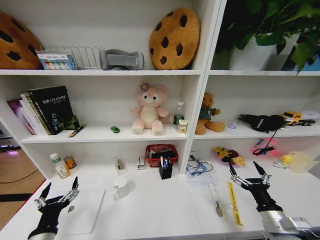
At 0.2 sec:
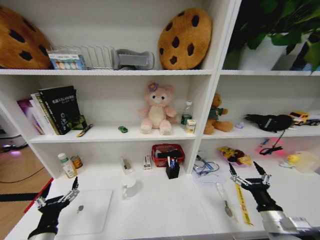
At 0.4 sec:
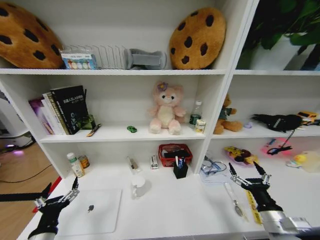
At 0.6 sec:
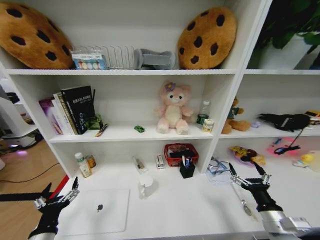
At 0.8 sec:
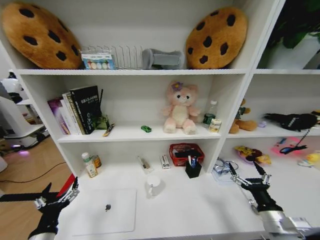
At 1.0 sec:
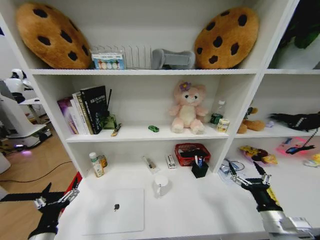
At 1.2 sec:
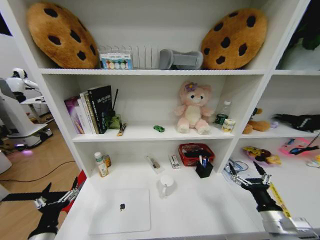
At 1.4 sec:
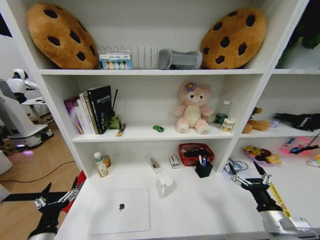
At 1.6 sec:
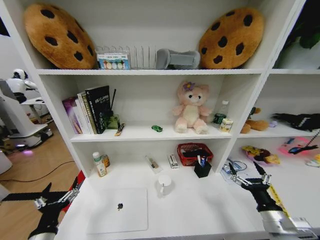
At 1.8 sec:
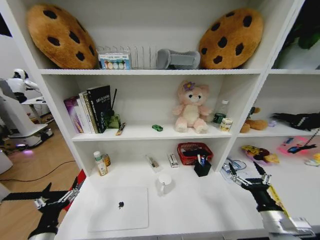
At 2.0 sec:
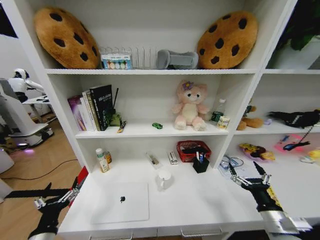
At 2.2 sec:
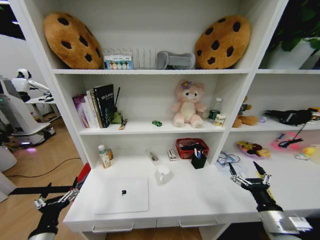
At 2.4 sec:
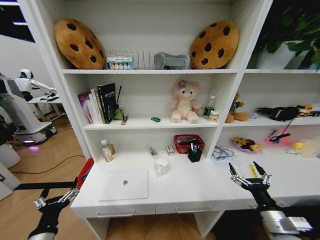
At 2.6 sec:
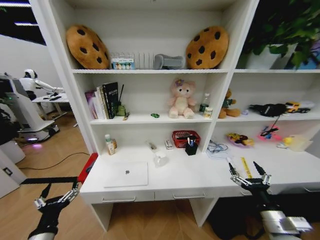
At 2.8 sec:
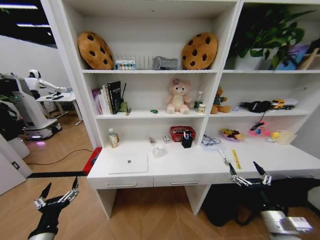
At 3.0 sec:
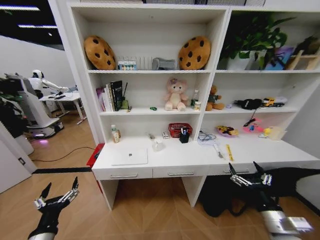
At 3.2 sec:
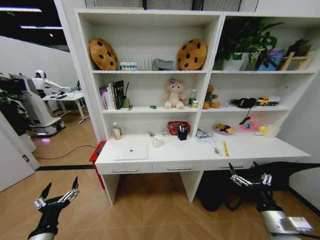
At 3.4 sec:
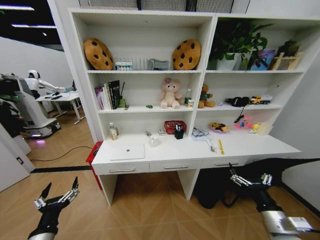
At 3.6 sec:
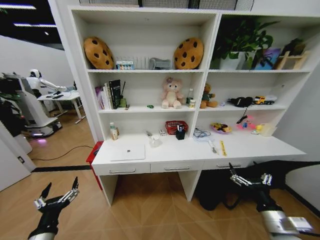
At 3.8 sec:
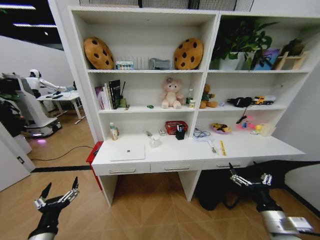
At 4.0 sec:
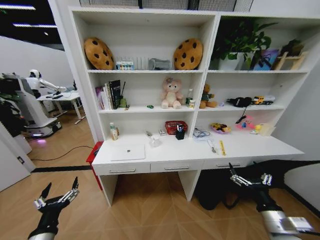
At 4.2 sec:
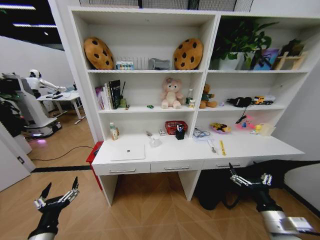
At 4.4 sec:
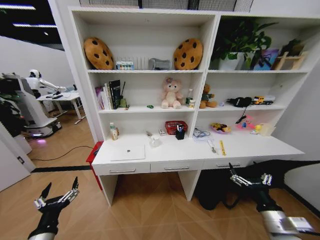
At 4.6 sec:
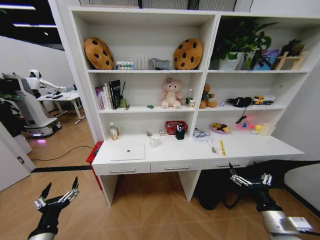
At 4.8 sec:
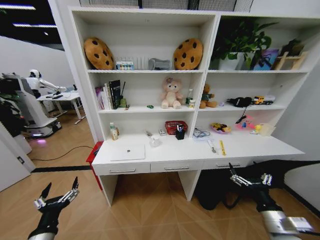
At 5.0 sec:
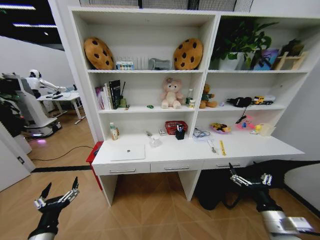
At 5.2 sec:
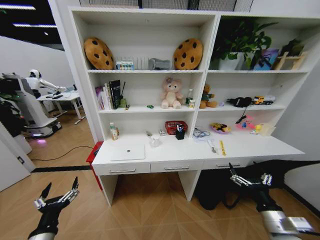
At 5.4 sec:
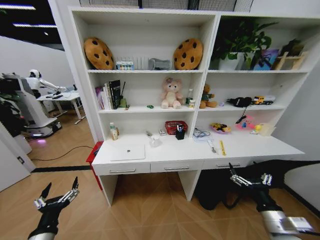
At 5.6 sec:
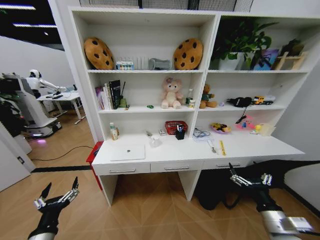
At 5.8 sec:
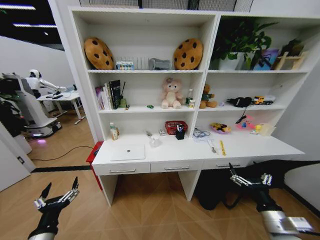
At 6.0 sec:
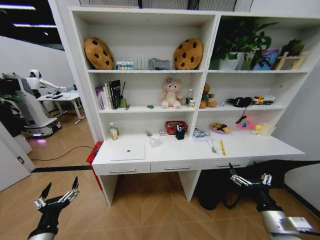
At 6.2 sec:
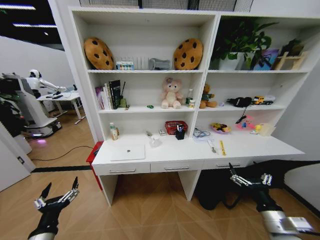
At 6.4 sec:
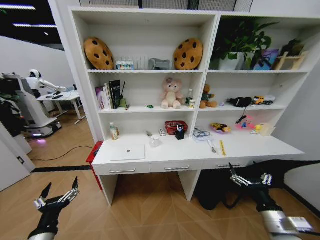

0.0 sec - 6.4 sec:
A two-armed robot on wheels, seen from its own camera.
Task of the whole recording: Organize the objects on the table.
4.8 sec - 6.4 sec: Neither gripper changes place.
